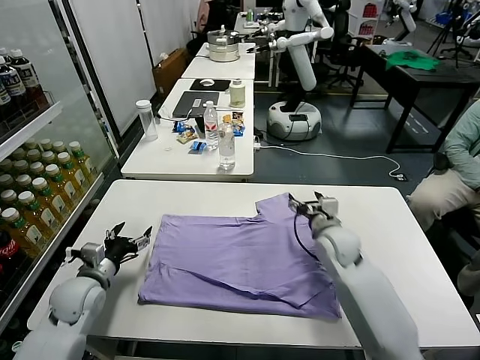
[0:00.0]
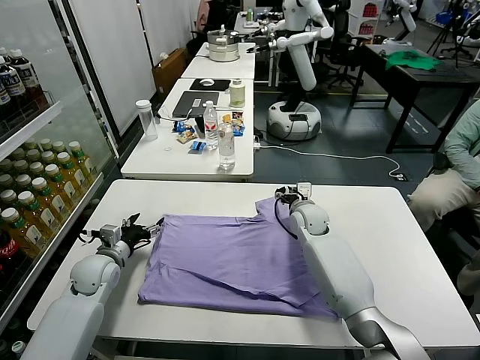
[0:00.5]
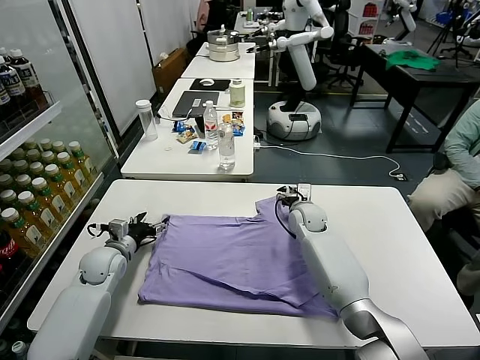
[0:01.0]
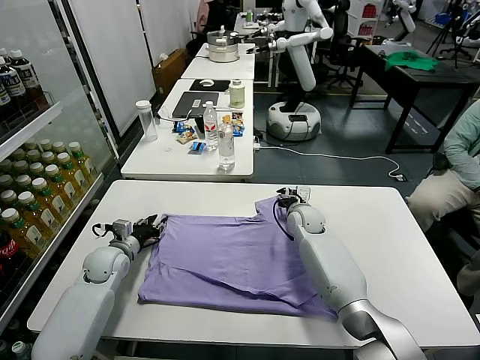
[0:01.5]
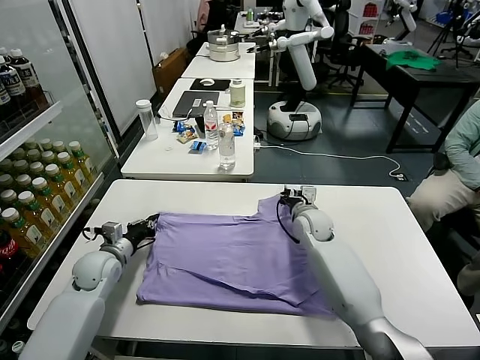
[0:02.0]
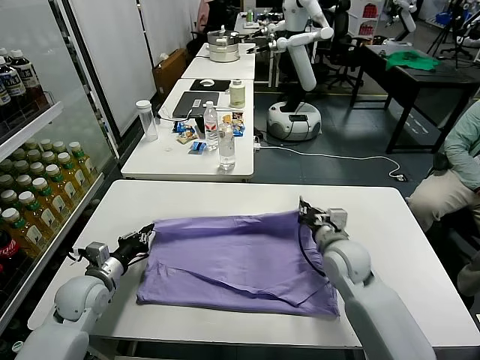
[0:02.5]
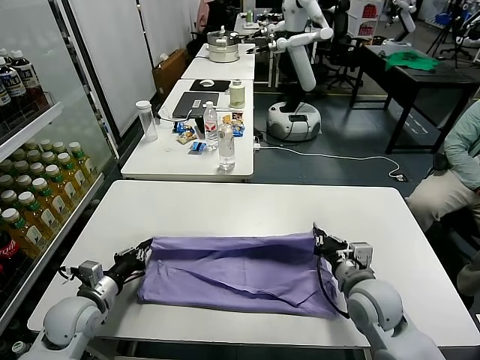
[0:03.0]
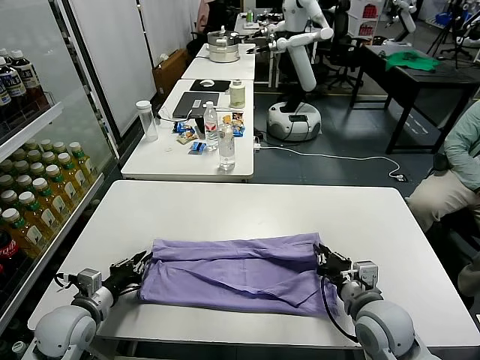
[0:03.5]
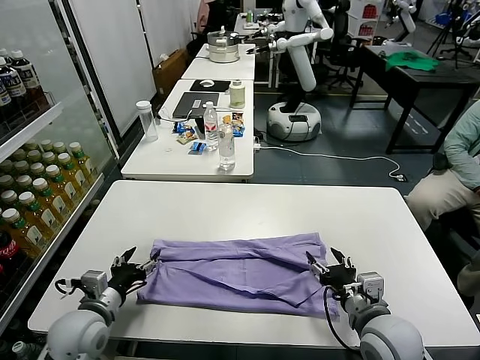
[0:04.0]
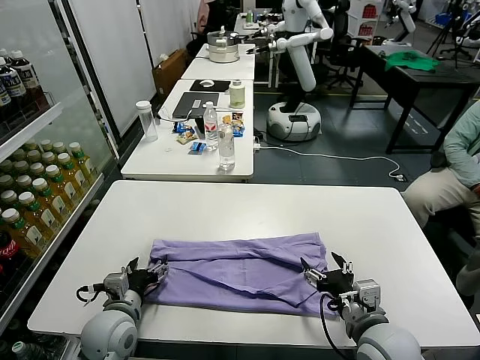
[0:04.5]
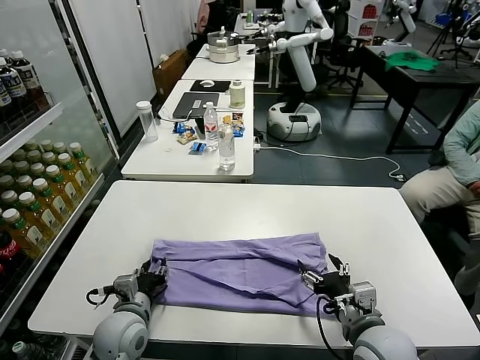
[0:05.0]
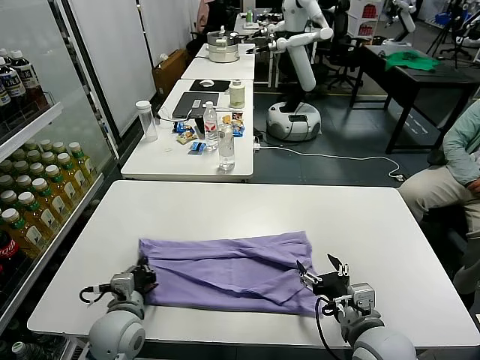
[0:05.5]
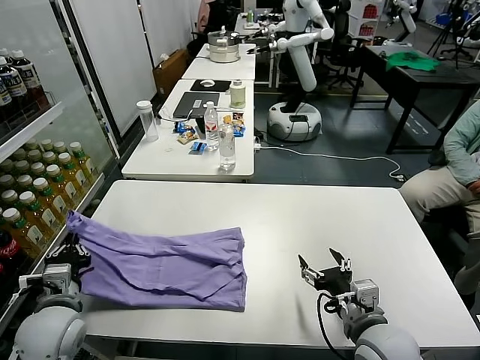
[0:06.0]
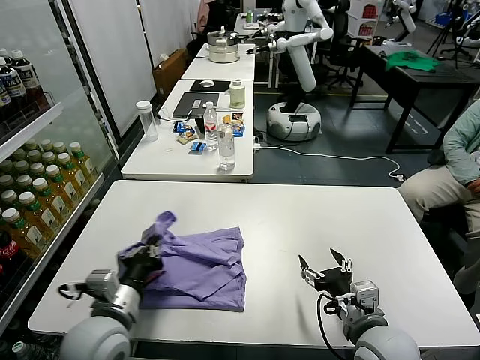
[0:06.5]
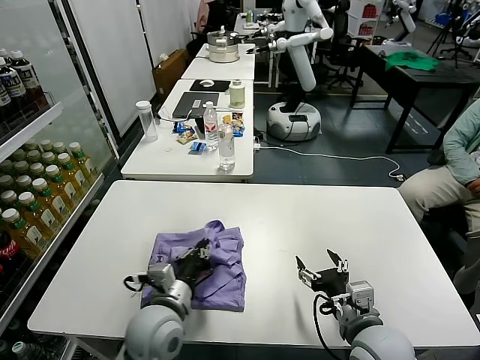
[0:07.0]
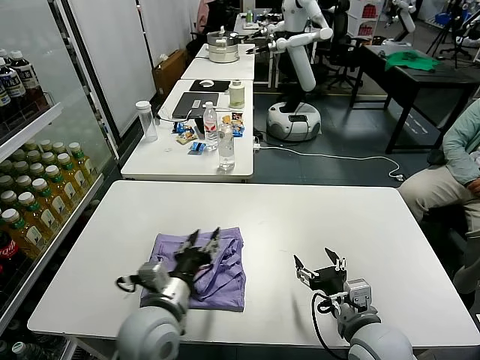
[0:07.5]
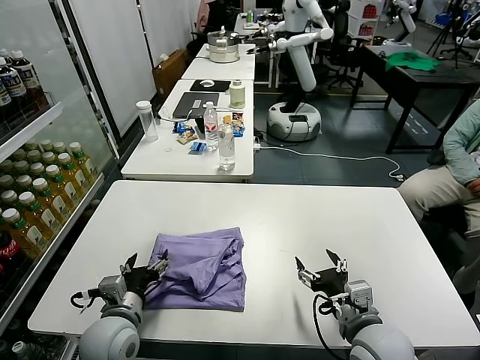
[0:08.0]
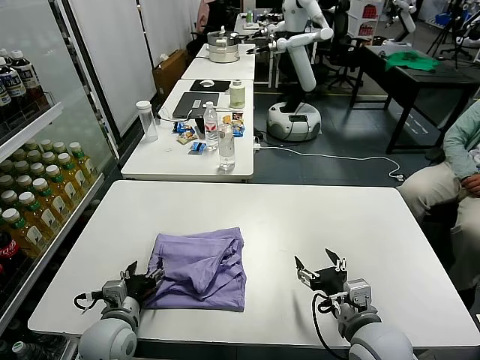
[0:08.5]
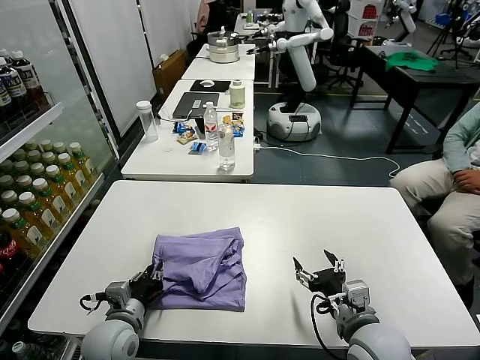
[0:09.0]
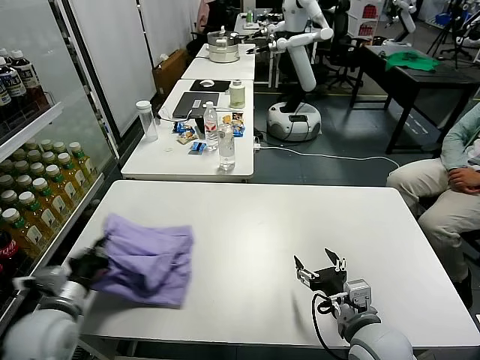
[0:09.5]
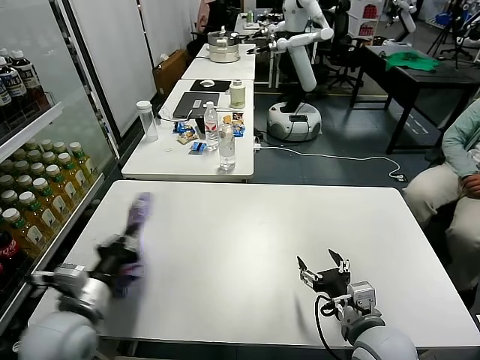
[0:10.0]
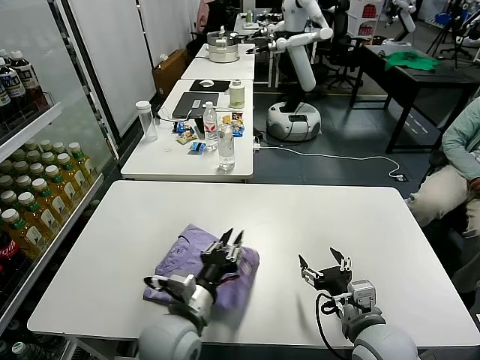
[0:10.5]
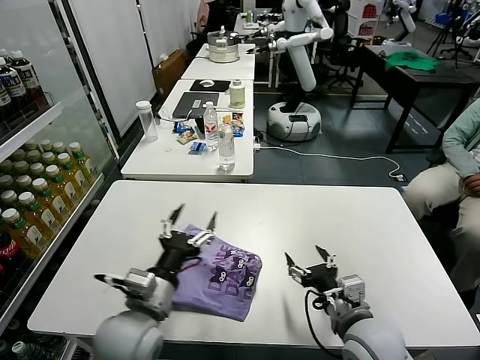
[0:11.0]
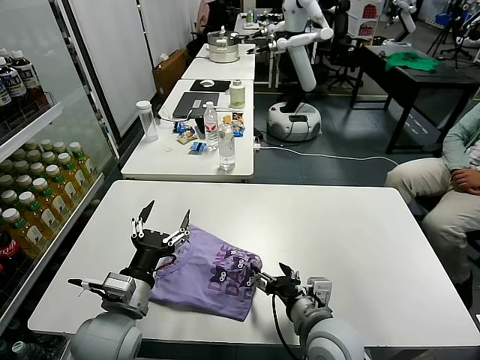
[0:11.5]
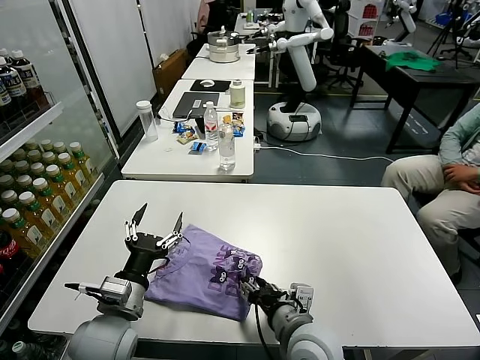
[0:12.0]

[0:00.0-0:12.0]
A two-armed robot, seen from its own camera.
Task of the whole recording: fold and organize the clothes.
Step, 0:00.0 to 0:01.5: use both grippers simultaneously to clamp the upper edge of the clothing fabric.
Step, 0:02.0 to 0:03.5: use both grippers to drag the upper edge of the fabric backward and fold it over the lower edge.
Step, 0:04.0 to 0:05.5: use the left gripper to clamp the left edge of the fabric.
Step, 0:06.0 to 0:07.5: use the left gripper to drag the left edge of the fabric to the left and folds it over the right edge.
Step, 0:08.0 to 0:10.5: Flip the folded clothes over with left gripper.
0:00.0 to 0:02.0: The right gripper moves about 10 cm forward and comes back, and closes up; the left gripper shifts some 5 cm forward, and closes.
0:02.0 to 0:04.0: The left gripper is displaced backward by about 15 cm, and opens its fingers, while the right gripper goes about 25 cm backward, and opens its fingers.
0:04.0 to 0:06.0: The left gripper travels to the right and back again, approximately 5 cm each way, and closes up.
0:06.0 to 0:08.0: The left gripper goes some 10 cm to the right, and opens its fingers.
0:08.0 to 0:10.0: The left gripper moves upward and to the left, roughly 10 cm, and closes.
0:10.0 to 0:12.0: The right gripper is displaced to the left by some 10 cm; the left gripper goes about 5 cm to the right, and opens up.

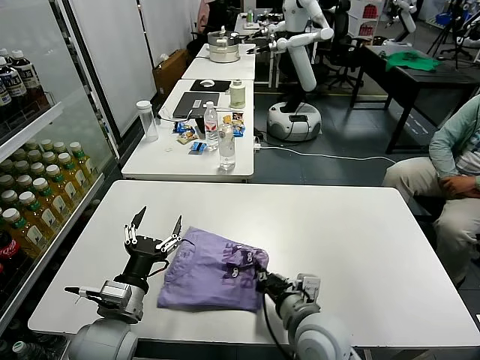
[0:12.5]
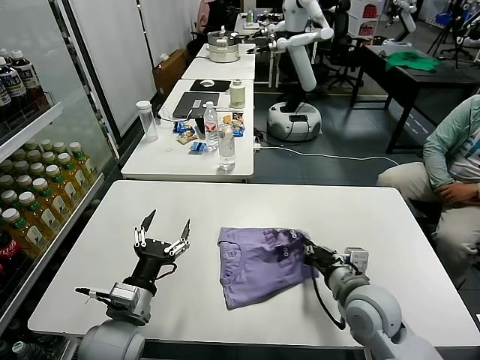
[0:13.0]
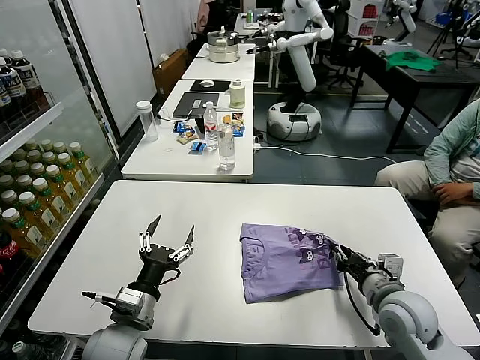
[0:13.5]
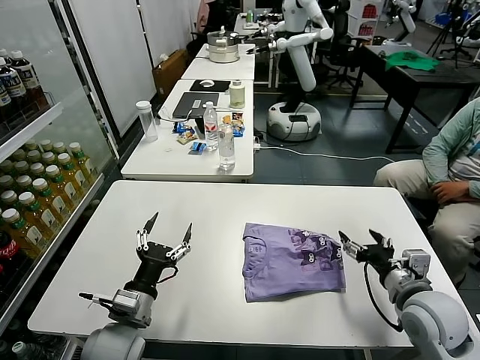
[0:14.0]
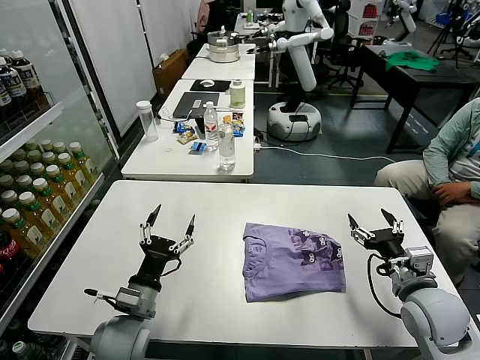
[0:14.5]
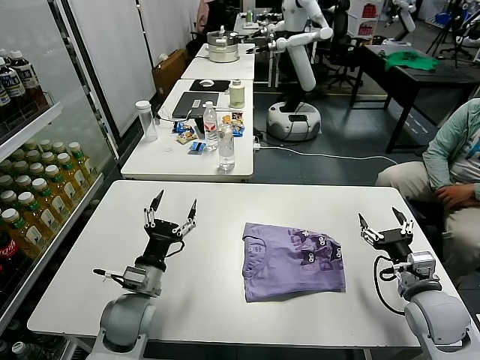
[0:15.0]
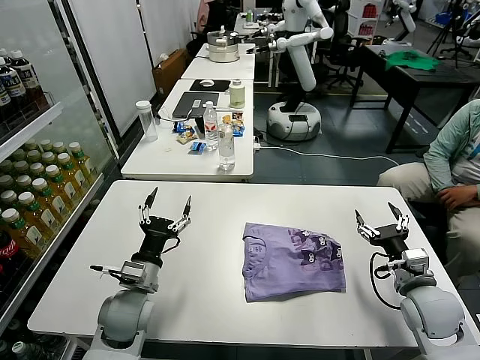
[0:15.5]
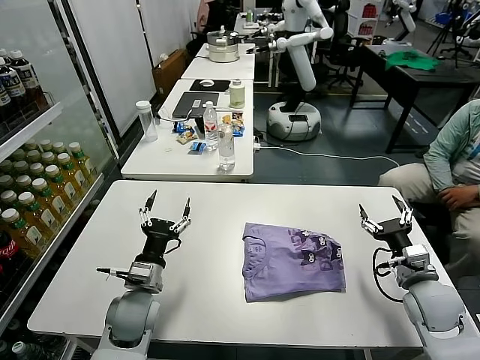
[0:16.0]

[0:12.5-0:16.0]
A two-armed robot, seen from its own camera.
Task of the whole recording: fold and organize the clothes.
0:12.5 to 0:14.5: The right gripper moves to the right, about 20 cm, and opens its fingers.
0:14.5 to 0:16.0: The left gripper travels forward by some 5 cm. The right gripper changes place by approximately 5 cm.
